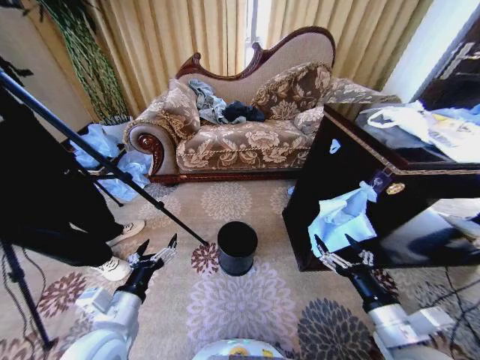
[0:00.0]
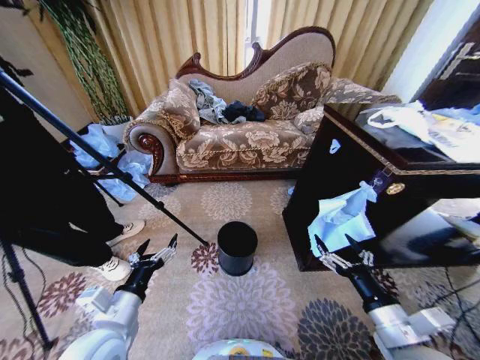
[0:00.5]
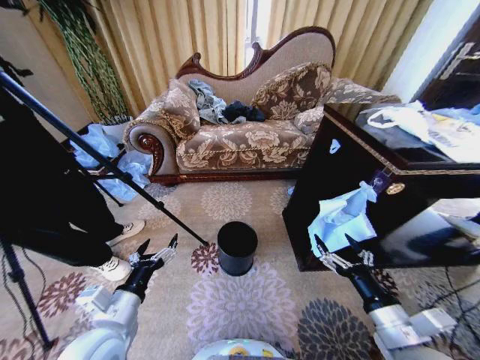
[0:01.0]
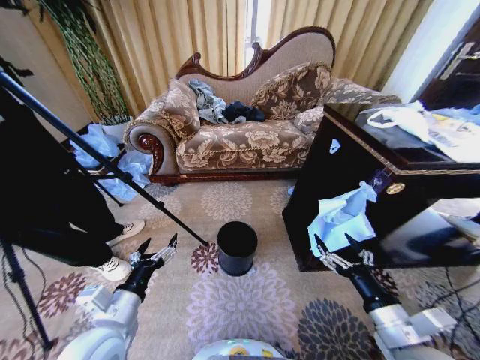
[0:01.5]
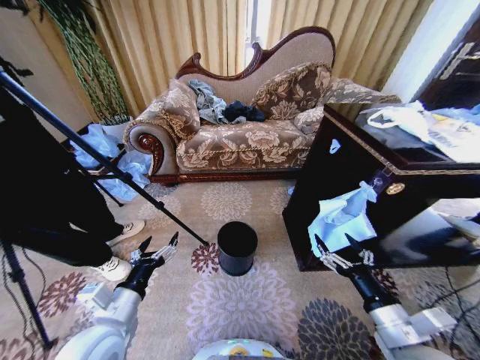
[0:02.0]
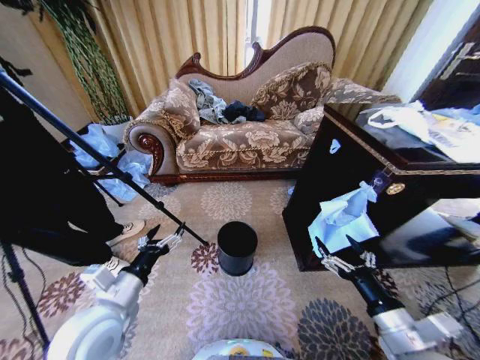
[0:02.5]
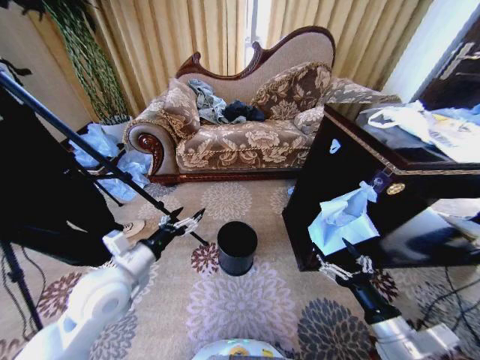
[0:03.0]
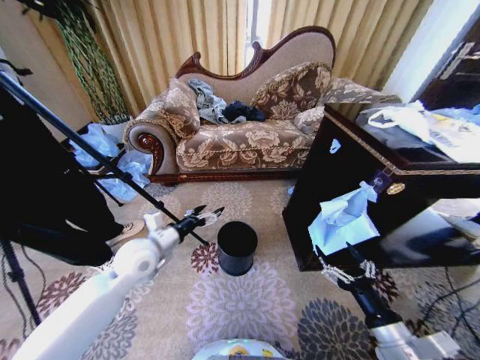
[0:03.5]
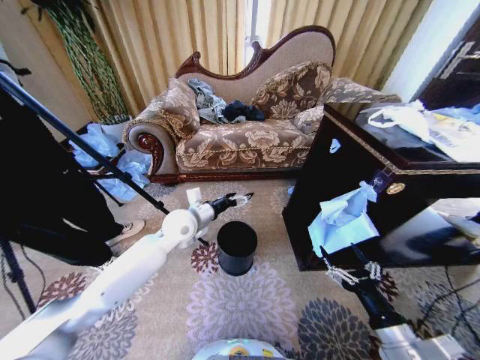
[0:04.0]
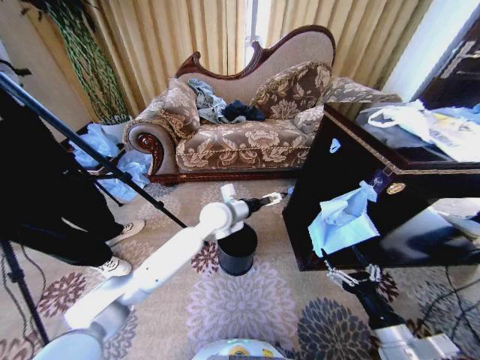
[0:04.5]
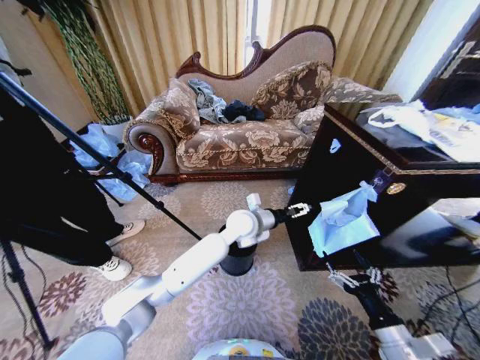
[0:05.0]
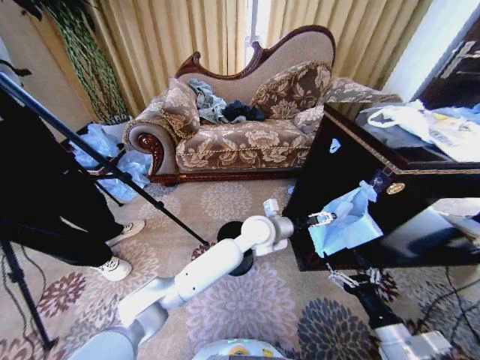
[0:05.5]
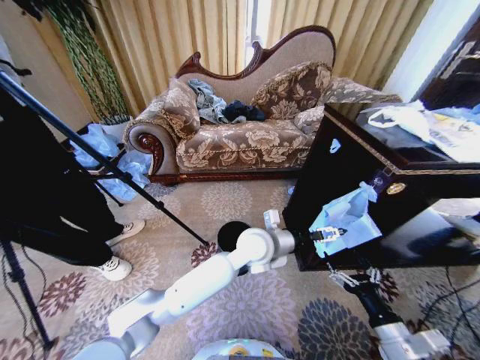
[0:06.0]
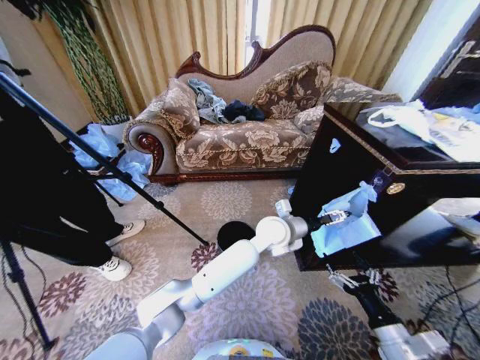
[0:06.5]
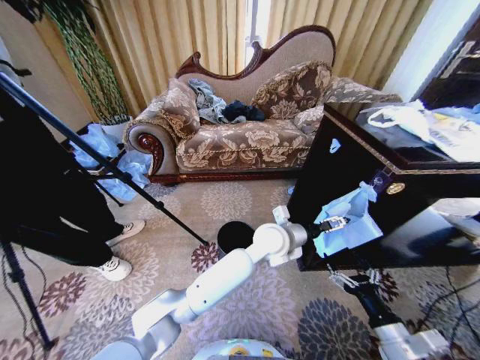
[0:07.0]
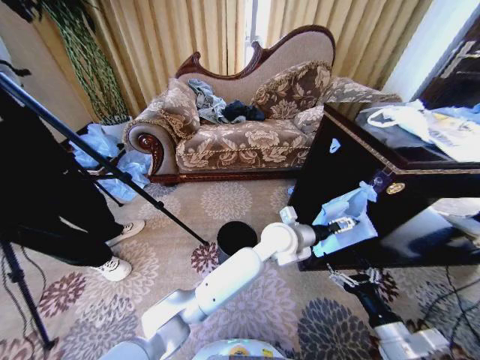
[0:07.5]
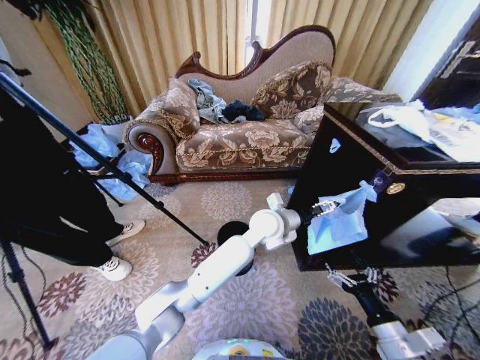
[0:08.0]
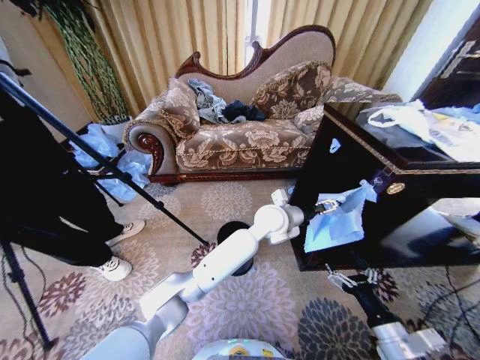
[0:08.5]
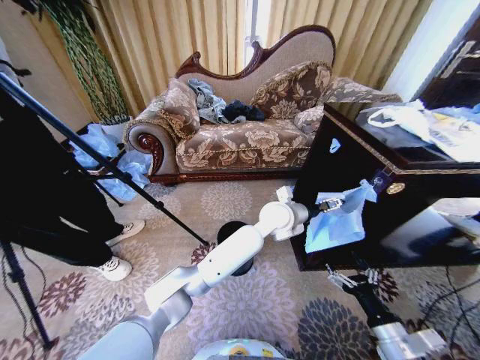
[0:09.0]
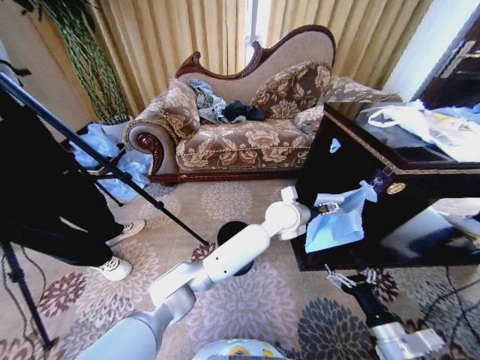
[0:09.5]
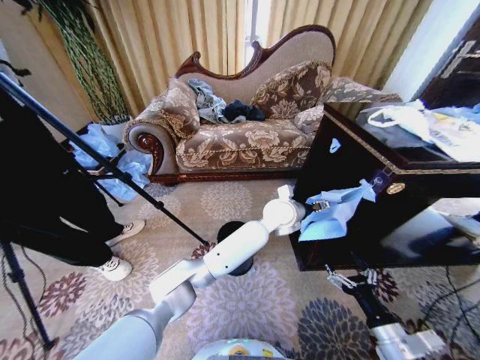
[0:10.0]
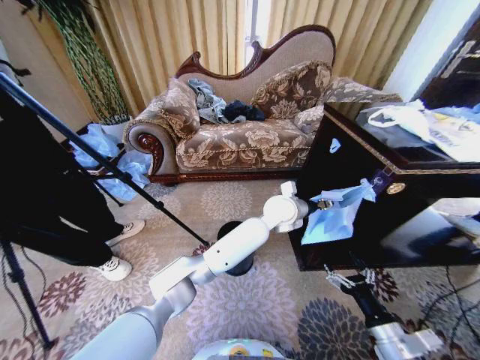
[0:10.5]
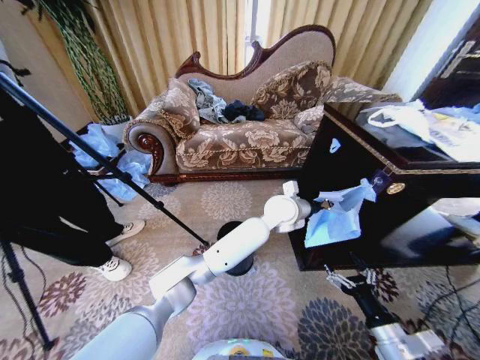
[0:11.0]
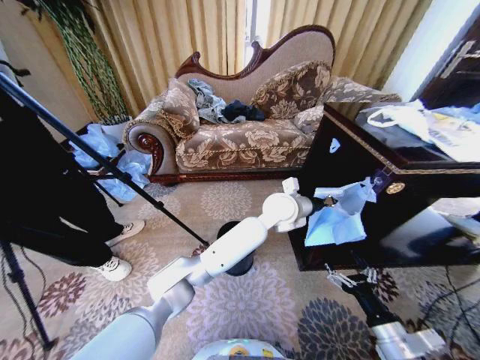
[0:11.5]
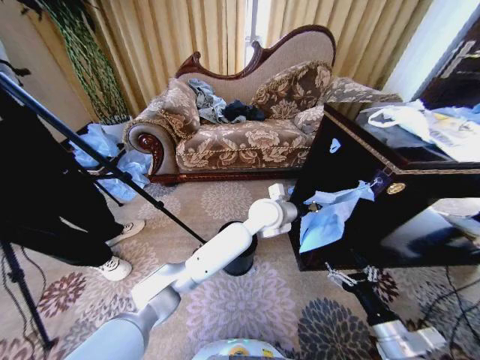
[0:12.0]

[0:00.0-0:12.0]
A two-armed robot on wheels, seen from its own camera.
Task of the whole recording: Place a garbage bag over the trash bin.
0:02.0 to 0:04.0: The left gripper is displaced forward by about 25 cm.
0:04.0 to 0:06.0: The left gripper goes some 20 cm to the right.
0:06.0 to 0:08.0: The left gripper heads forward, covering some 5 cm.
0:08.0 to 0:10.0: The left gripper changes place by roughly 5 cm.
0:10.0 to 0:12.0: The left gripper shifts by about 5 cm, and closes.

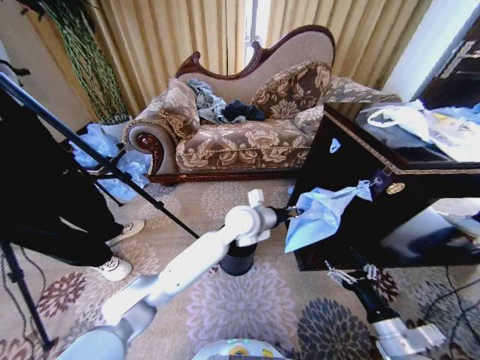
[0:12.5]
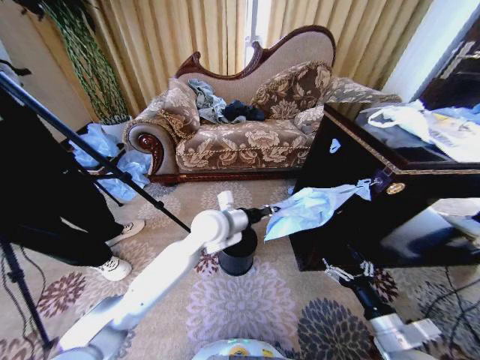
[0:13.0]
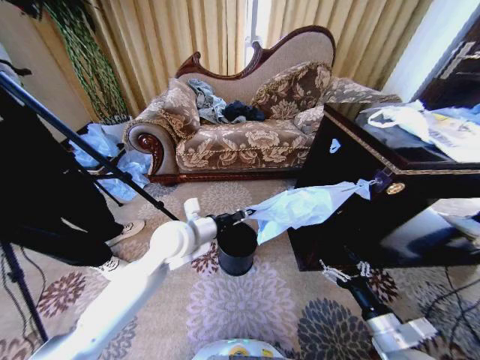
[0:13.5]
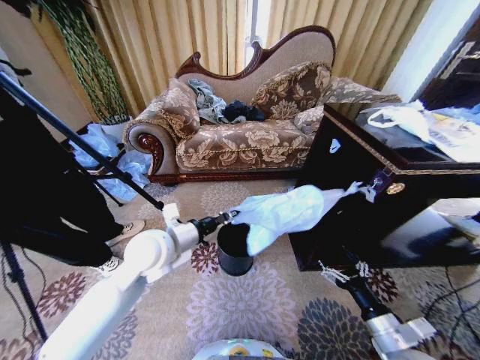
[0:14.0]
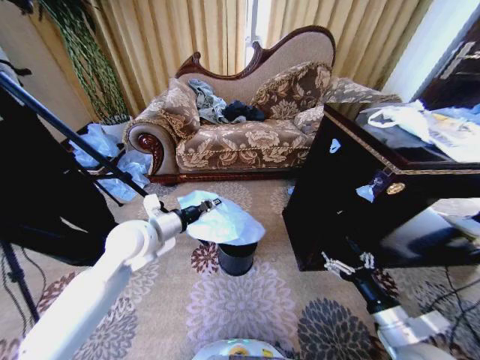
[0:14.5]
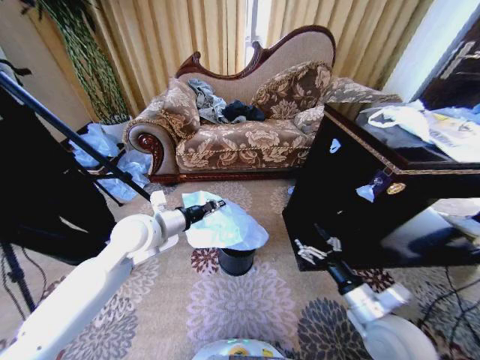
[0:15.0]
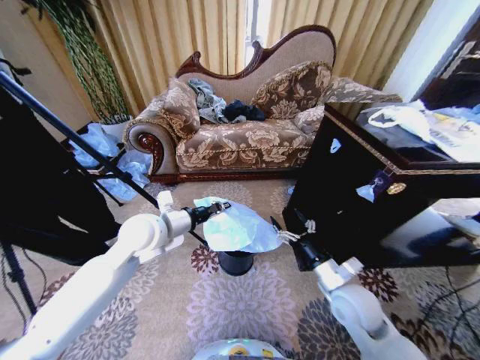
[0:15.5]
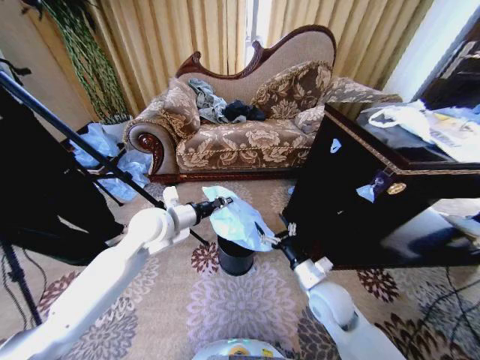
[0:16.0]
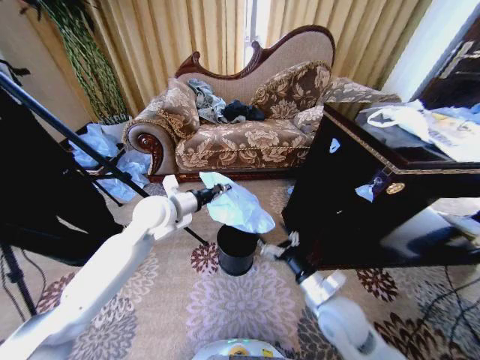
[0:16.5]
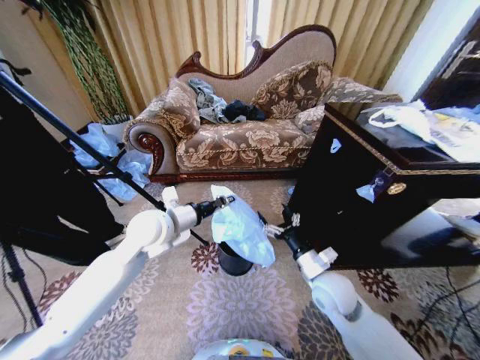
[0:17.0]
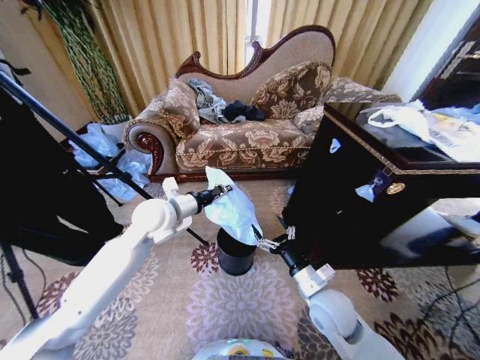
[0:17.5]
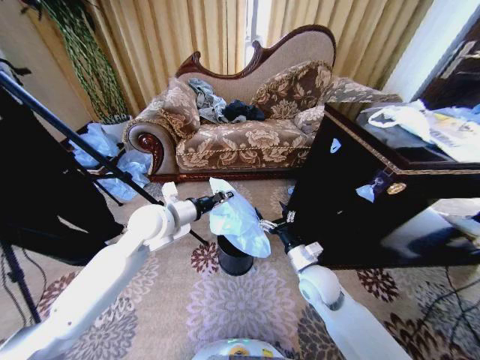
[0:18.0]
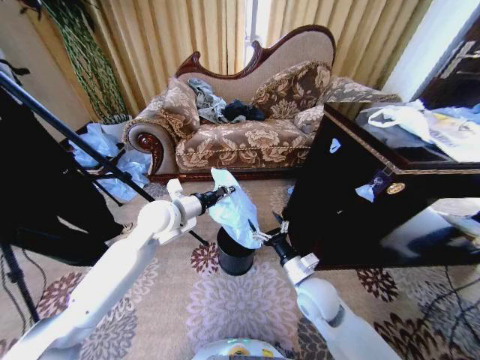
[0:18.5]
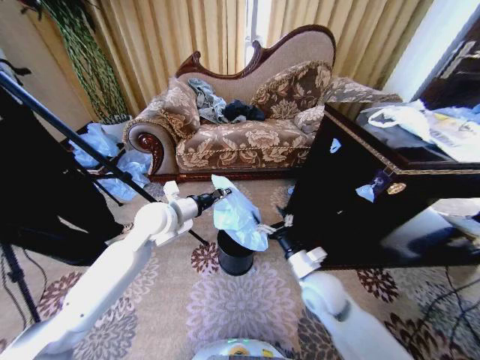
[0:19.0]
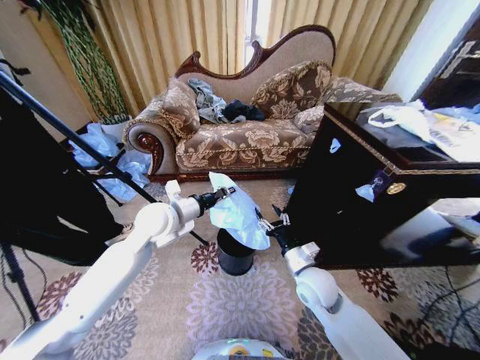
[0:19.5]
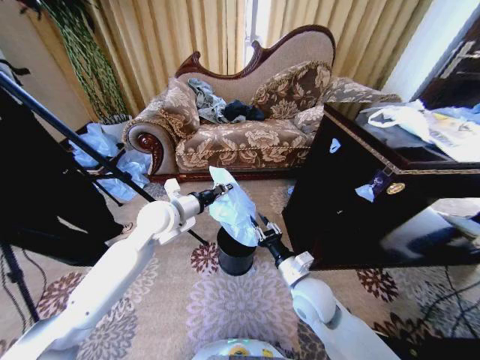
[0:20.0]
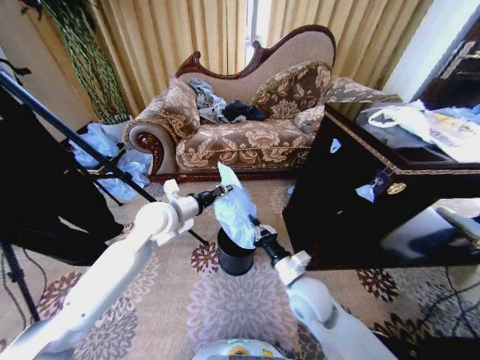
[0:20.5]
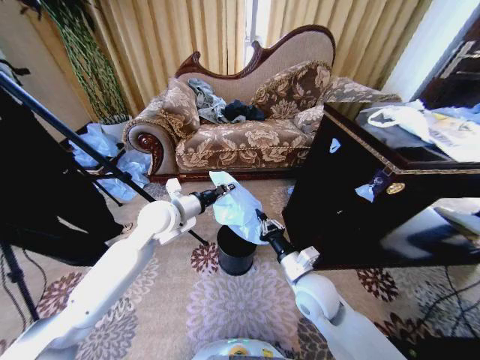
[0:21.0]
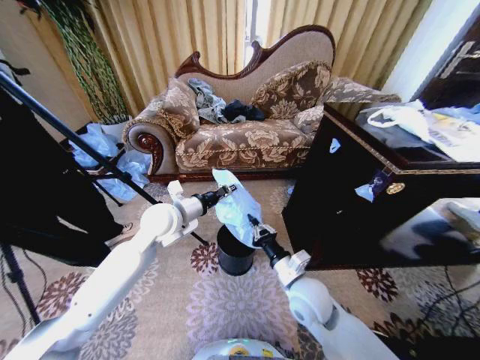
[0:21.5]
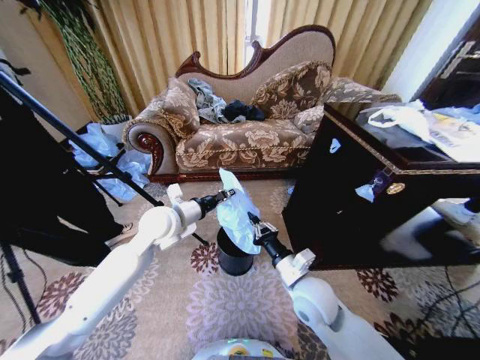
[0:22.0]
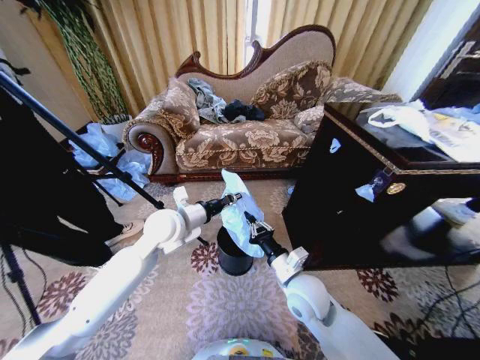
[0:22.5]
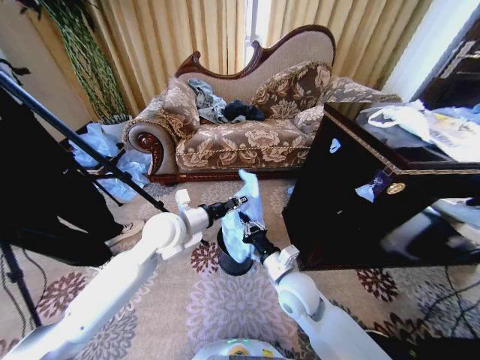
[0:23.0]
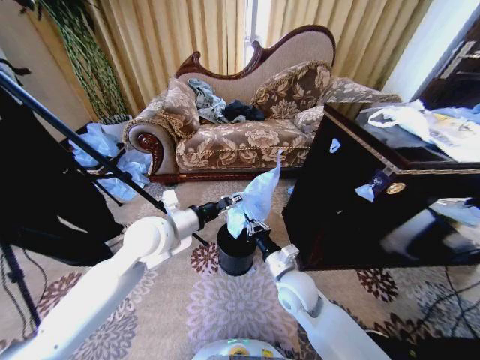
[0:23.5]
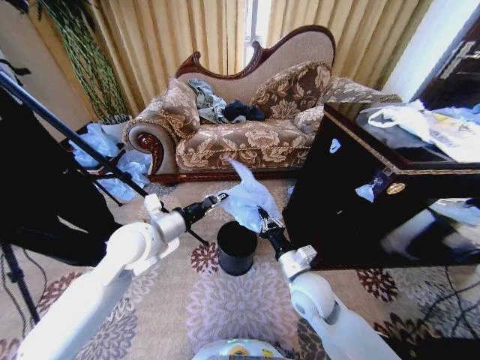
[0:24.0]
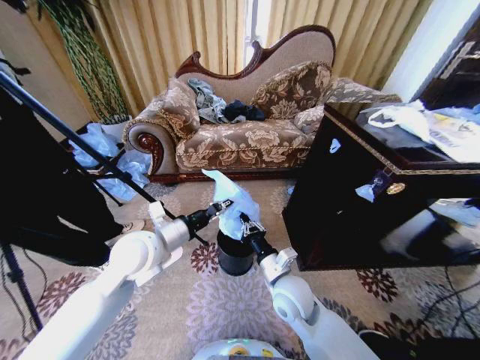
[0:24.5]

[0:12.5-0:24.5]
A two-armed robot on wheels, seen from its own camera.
Task of the whole recording: Place a garbage bag over the trash bin.
0:12.5 to 0:14.5: The left gripper travels to the left by about 25 cm.
0:14.5 to 0:16.5: The right gripper goes approximately 15 cm to the left and forward, while the left gripper goes some 5 cm forward.
0:16.5 to 0:18.5: The right gripper shifts by approximately 5 cm.
0:18.5 to 0:20.5: The right gripper closes its fingers.
0:20.5 to 0:22.5: The grippers move only a little.
0:22.5 to 0:24.5: The left gripper shifts some 5 cm backward.

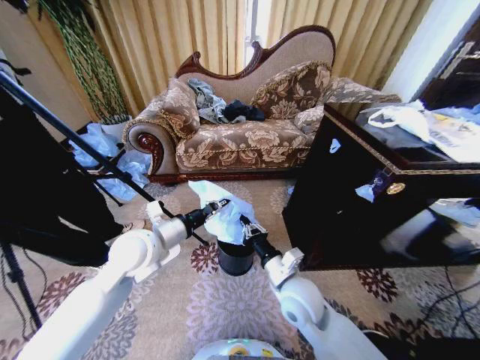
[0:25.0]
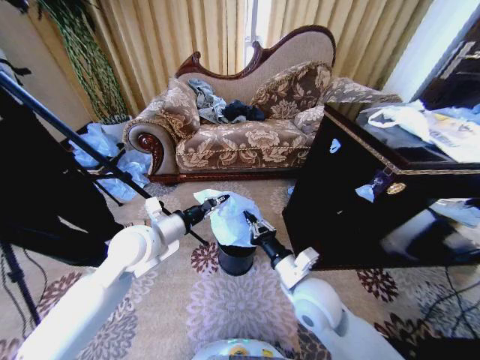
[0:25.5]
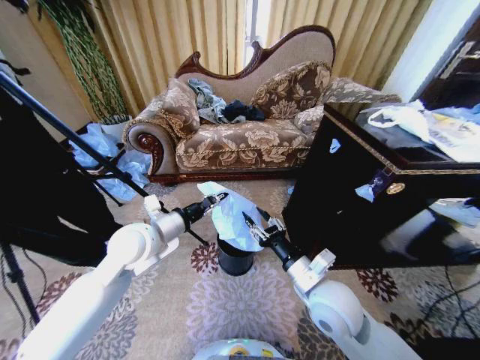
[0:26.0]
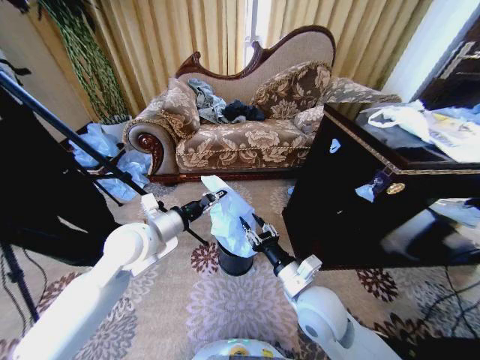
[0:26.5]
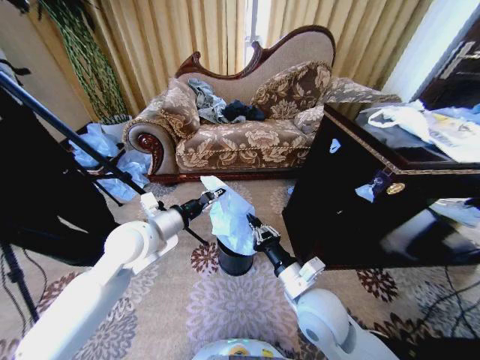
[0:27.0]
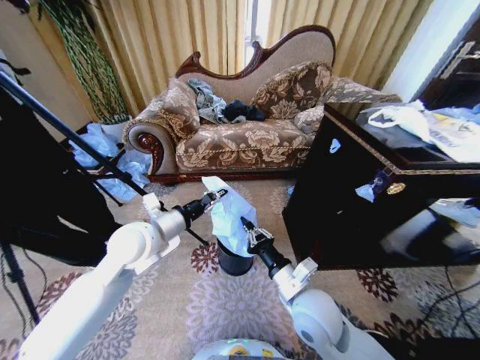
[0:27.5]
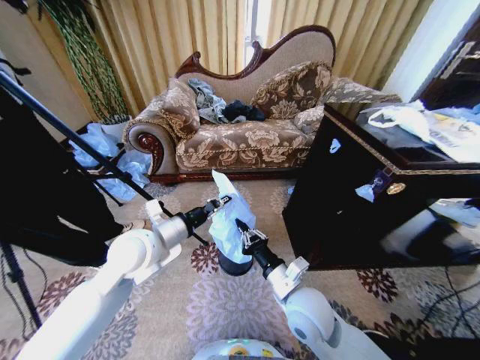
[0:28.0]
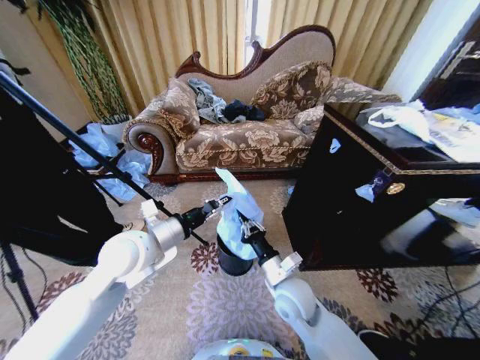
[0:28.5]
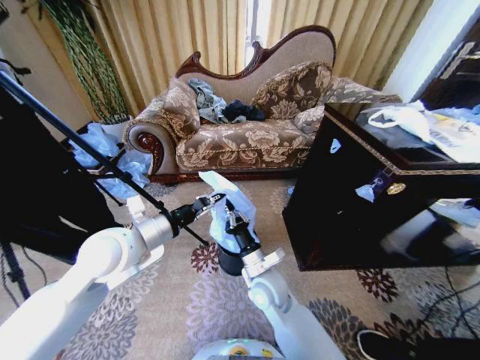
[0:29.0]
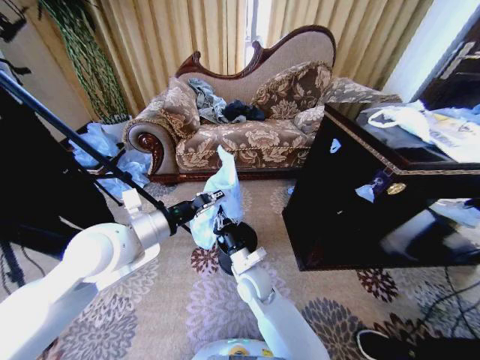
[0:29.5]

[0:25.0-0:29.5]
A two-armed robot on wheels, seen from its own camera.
Task of the whole recording: Place a garbage bag over the trash bin.
0:25.0 to 0:27.0: The right gripper opens, then closes once more.
0:27.0 to 0:29.5: The right gripper moves to the left, downward and forward, roughly 20 cm. Meanwhile the left gripper ends up roughly 5 cm from where it was.
